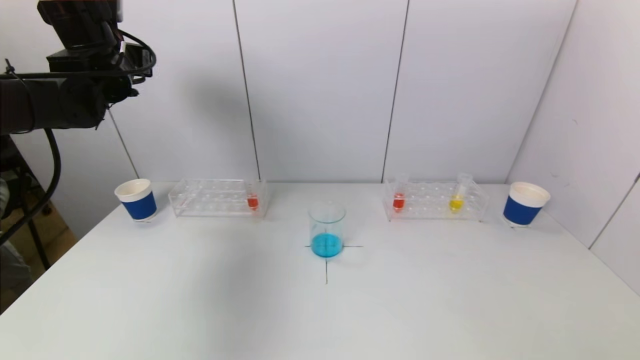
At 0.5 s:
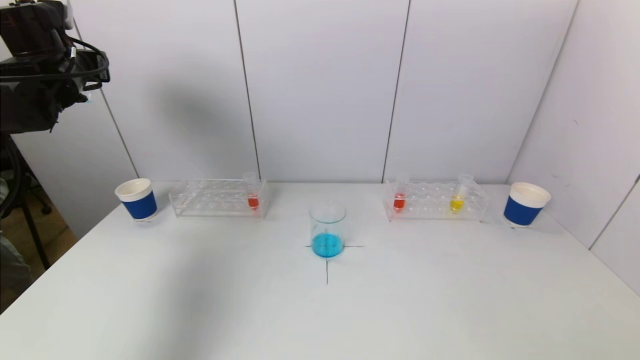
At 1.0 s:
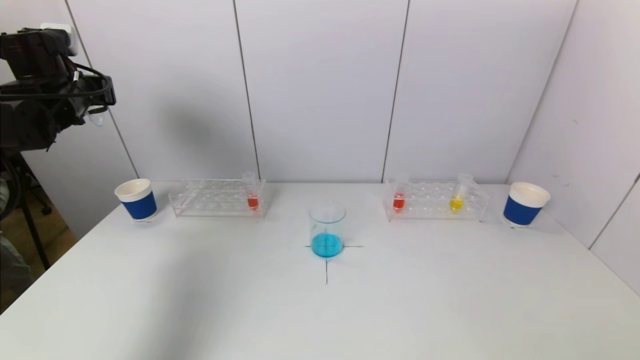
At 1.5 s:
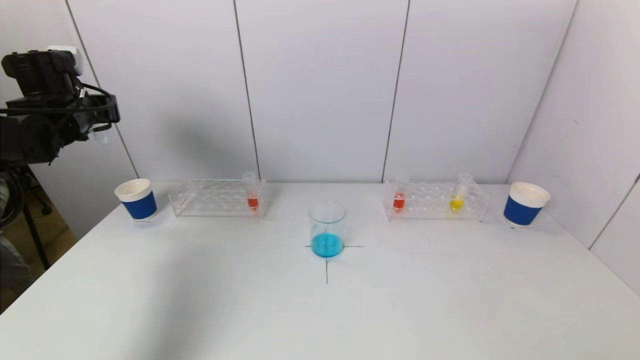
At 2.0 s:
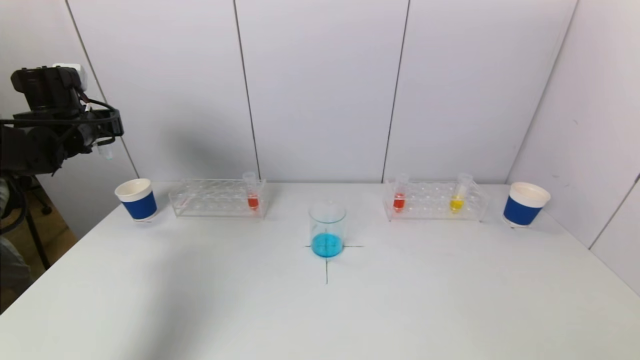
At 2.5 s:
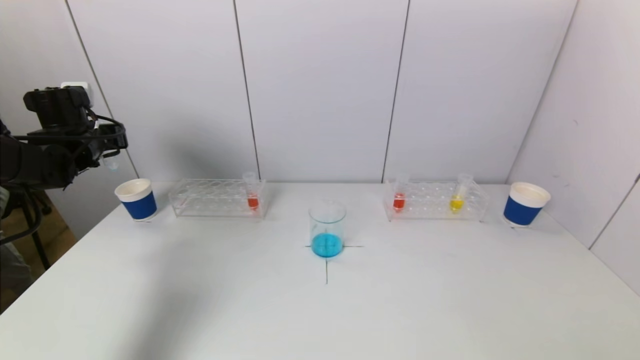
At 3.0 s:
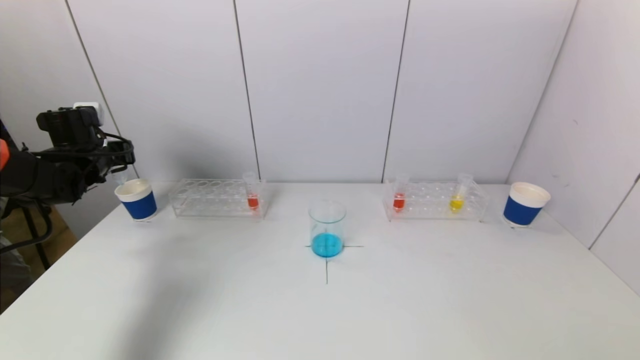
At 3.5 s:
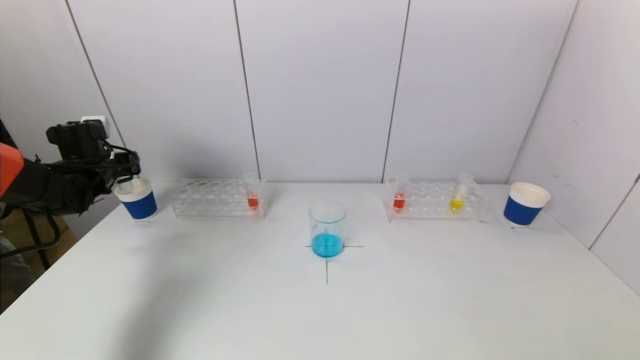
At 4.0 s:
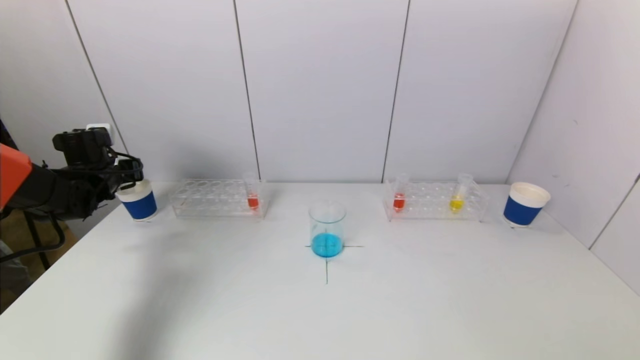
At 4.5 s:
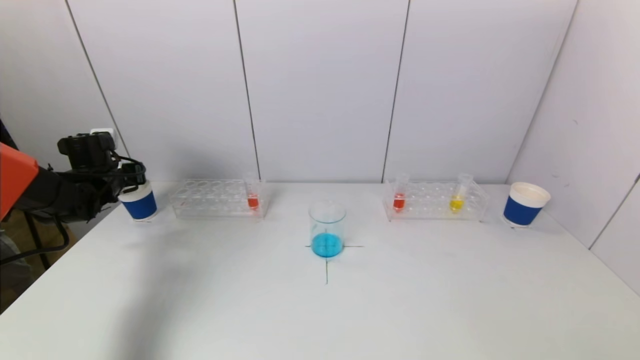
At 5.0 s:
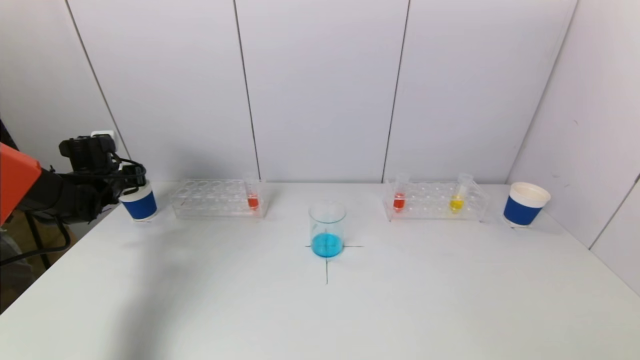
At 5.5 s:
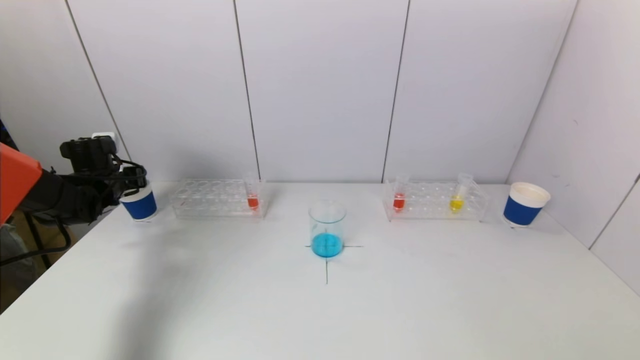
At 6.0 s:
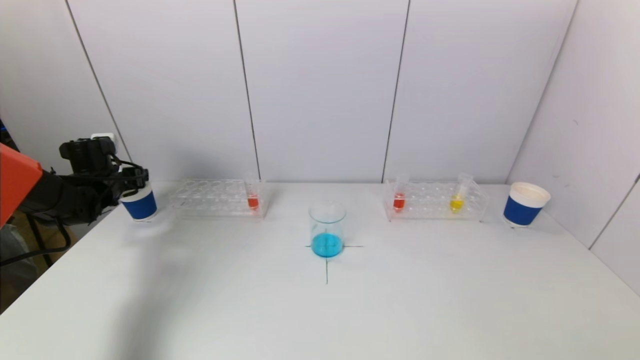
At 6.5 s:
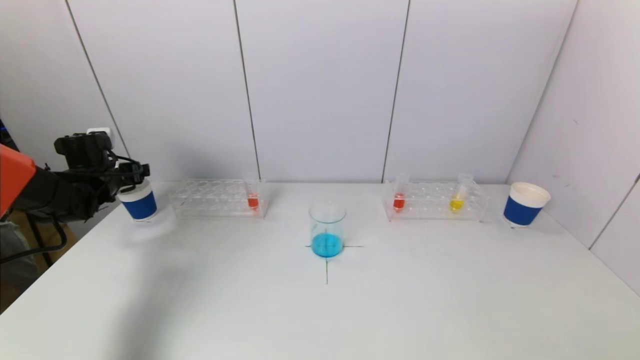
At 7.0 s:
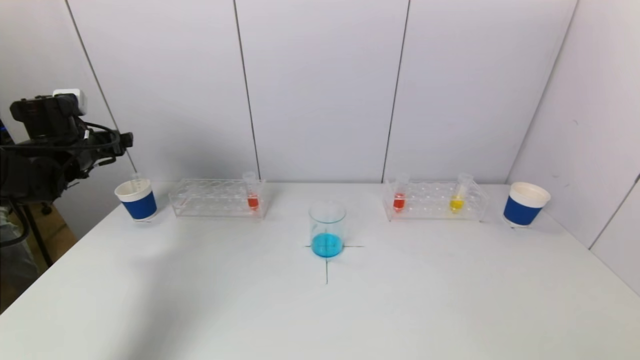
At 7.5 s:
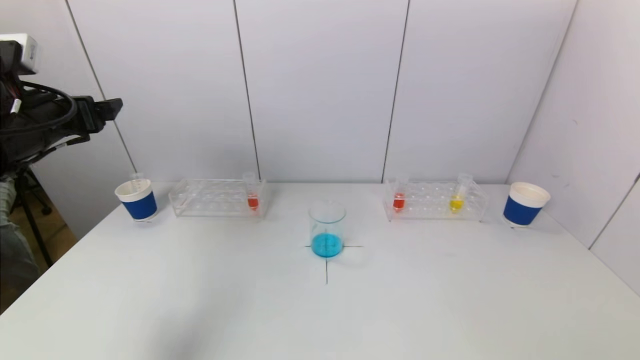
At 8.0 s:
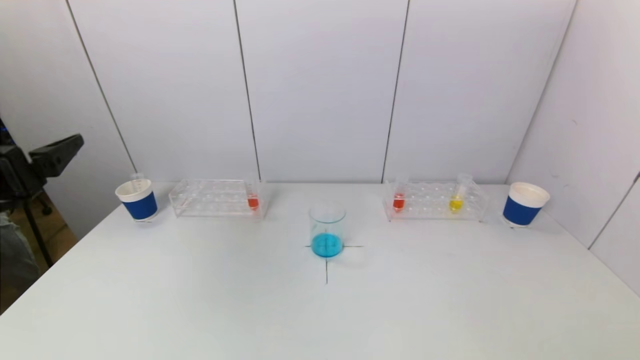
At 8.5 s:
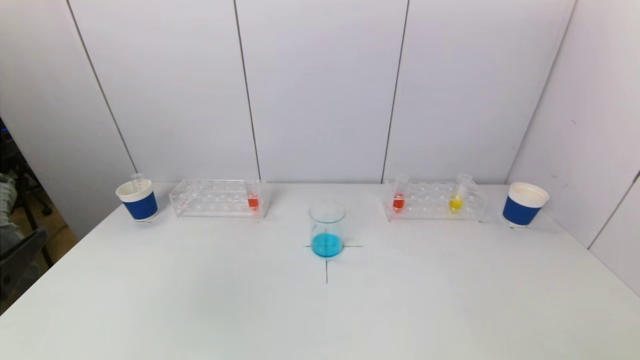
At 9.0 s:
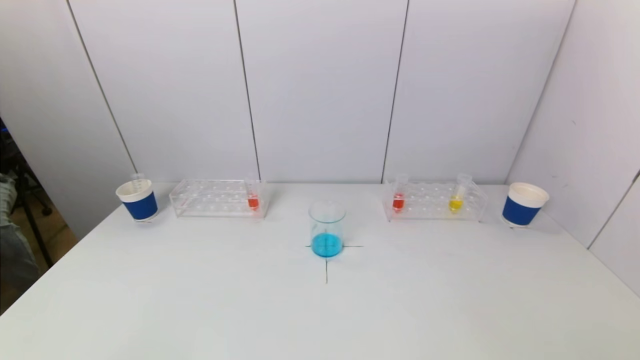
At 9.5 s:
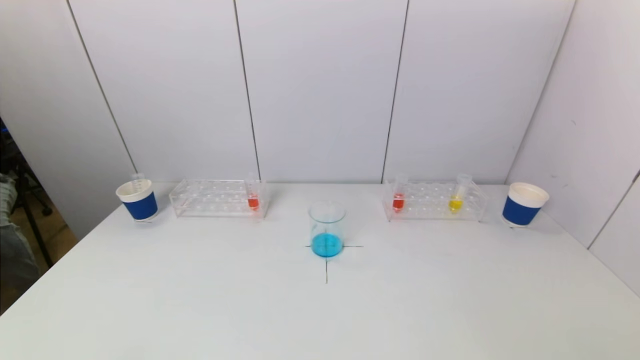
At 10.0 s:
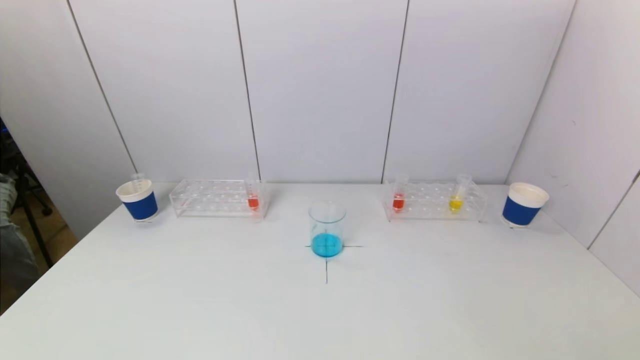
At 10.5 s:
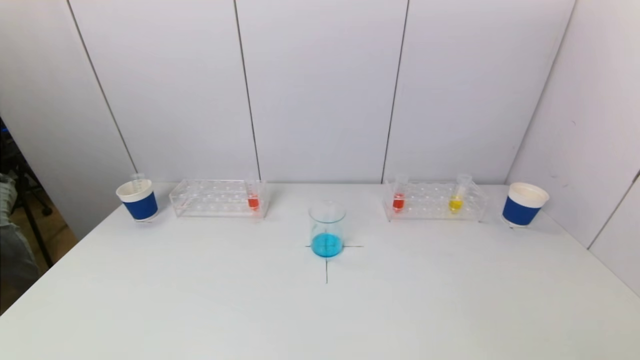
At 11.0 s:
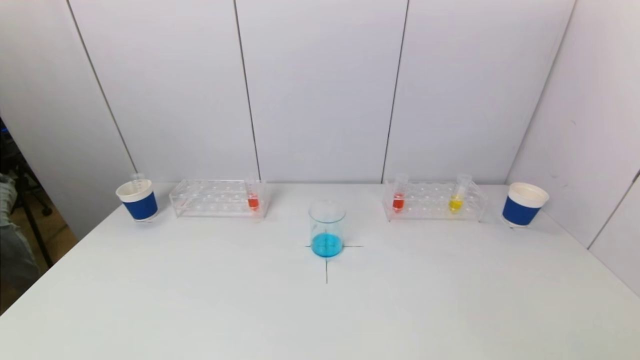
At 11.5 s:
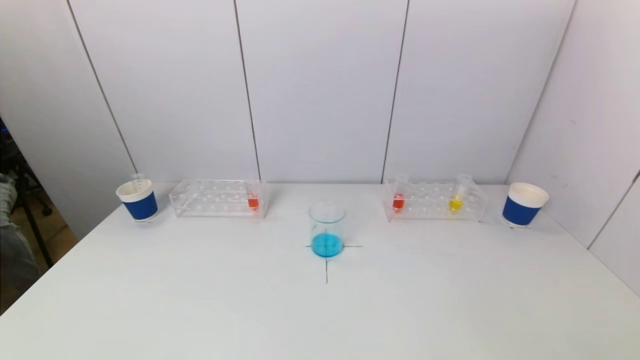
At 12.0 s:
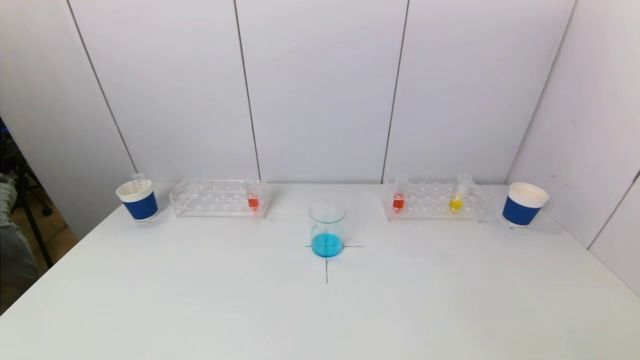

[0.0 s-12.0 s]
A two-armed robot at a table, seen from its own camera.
Task of the whole recording: pick up a test tube with pigment on left test tube rack and a test tube with pigment on right test tube rack by grippers and pour them into the beaker.
Step, 0.0 to 6.0 s: Place the test tube into the paper cup with the left gripper.
0.0 to 2.0 s: The left gripper is displaced downward and to the left by some 10 cm.
2.0 to 4.0 s: The left gripper goes roughly 10 cm downward.
4.0 to 6.0 s: The left gripper opens its fingers.
6.0 to 8.0 s: The left gripper travels backward and upward by roughly 30 cm.
8.0 to 10.0 s: The left gripper goes approximately 25 cm downward and backward.

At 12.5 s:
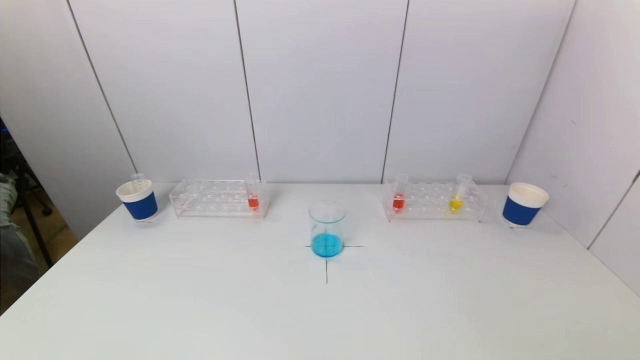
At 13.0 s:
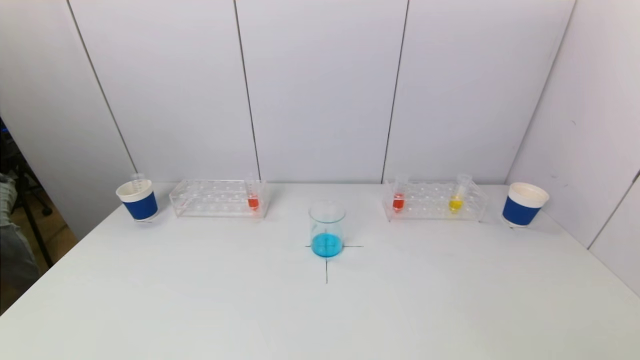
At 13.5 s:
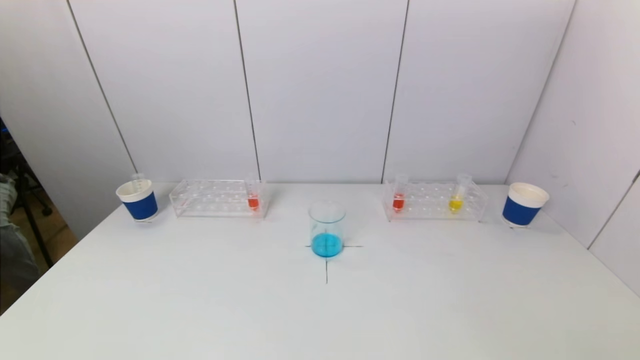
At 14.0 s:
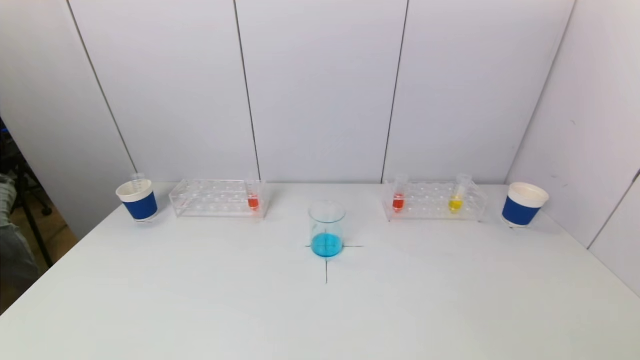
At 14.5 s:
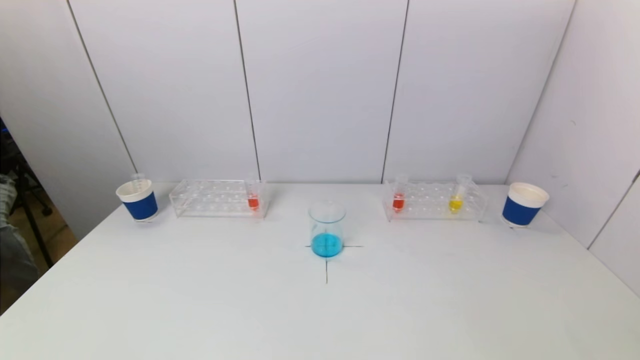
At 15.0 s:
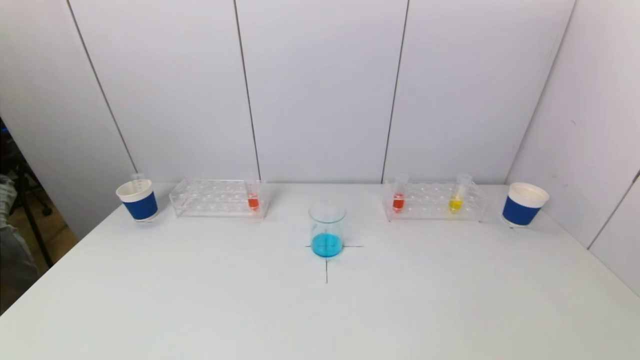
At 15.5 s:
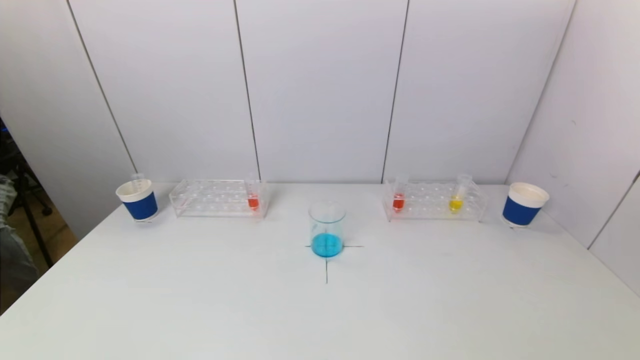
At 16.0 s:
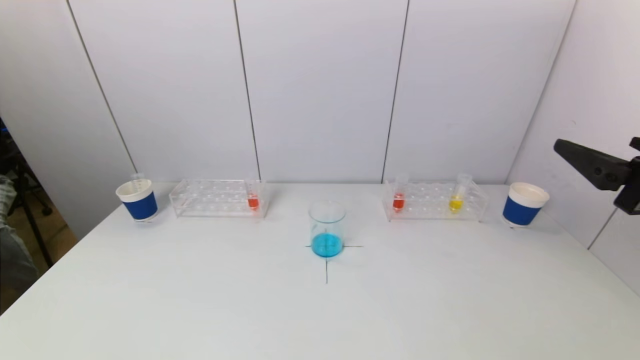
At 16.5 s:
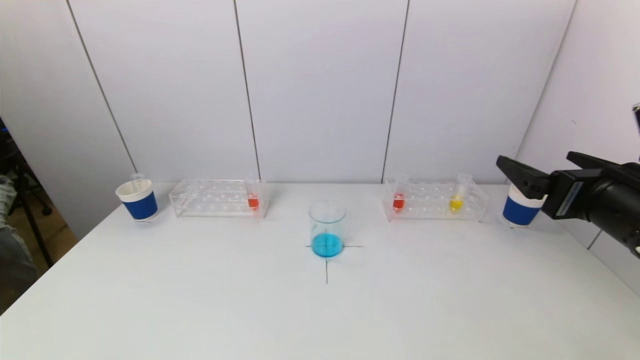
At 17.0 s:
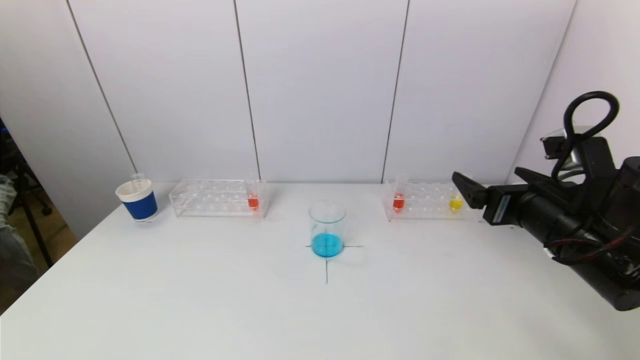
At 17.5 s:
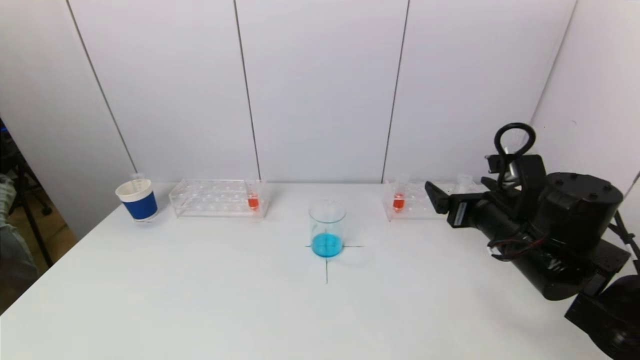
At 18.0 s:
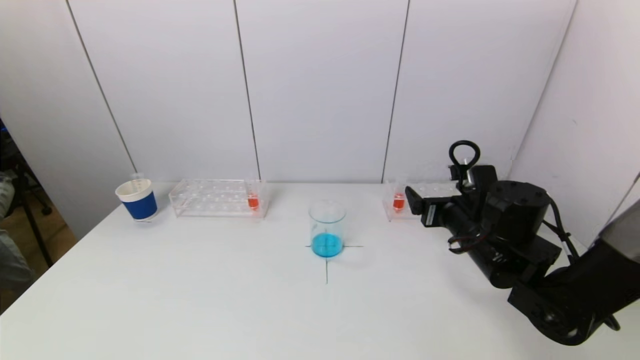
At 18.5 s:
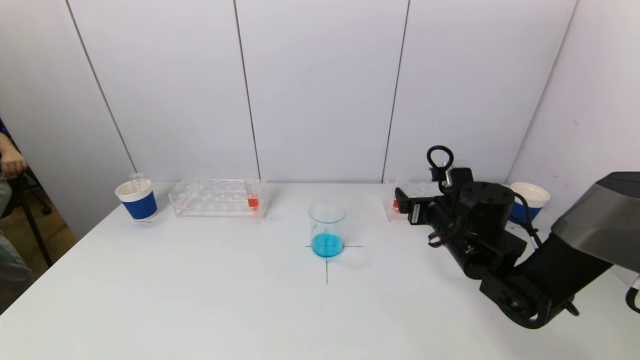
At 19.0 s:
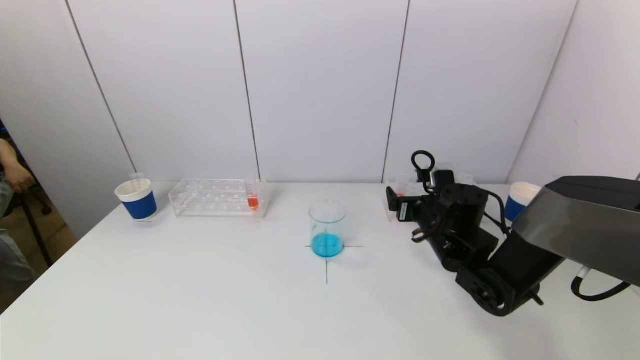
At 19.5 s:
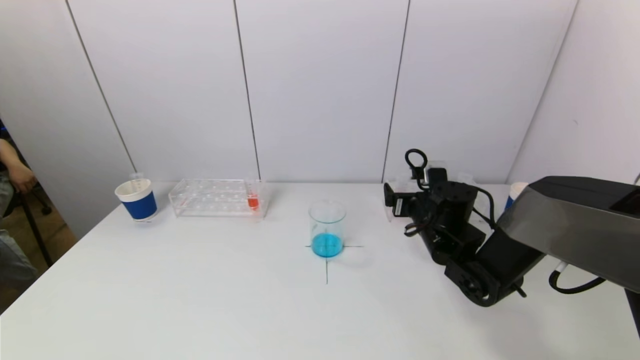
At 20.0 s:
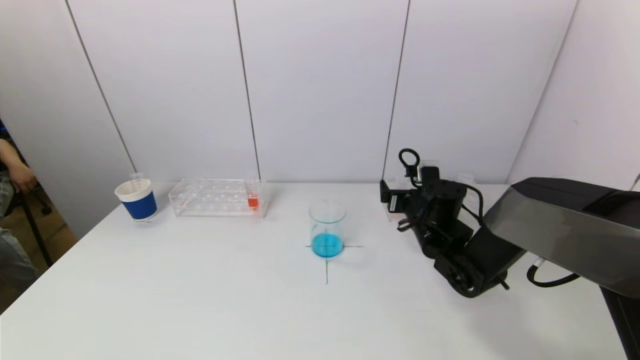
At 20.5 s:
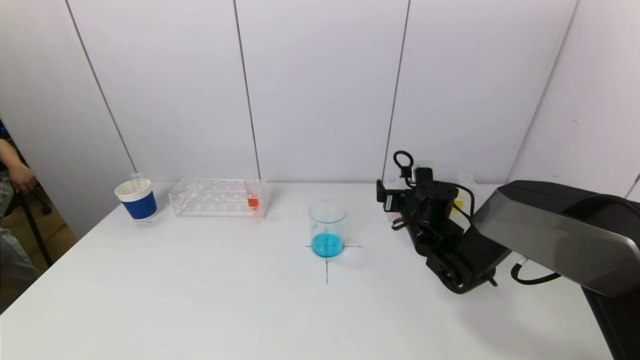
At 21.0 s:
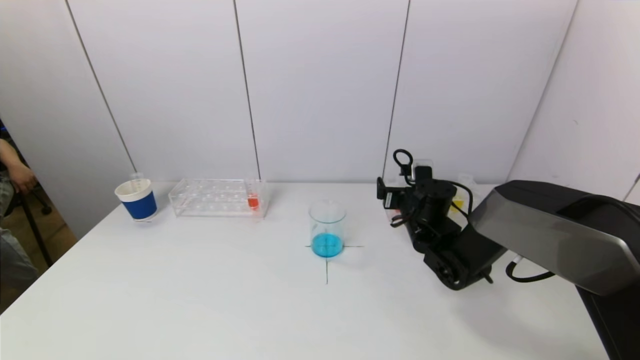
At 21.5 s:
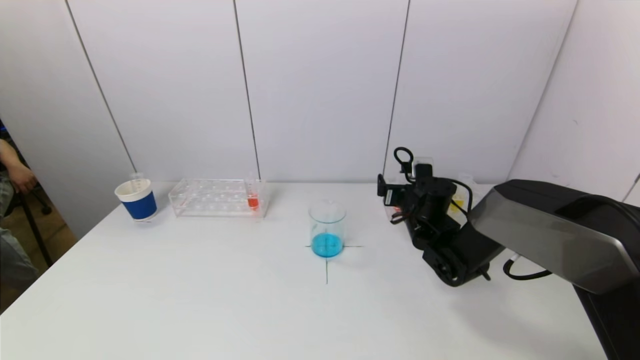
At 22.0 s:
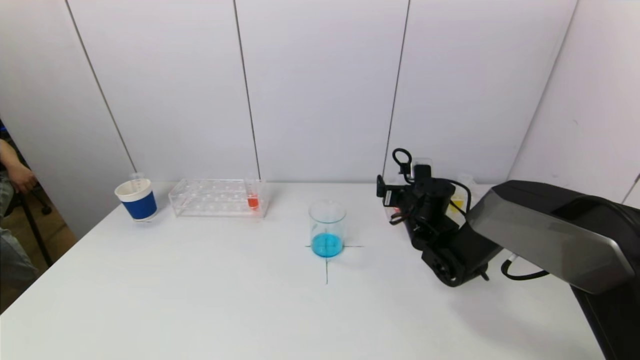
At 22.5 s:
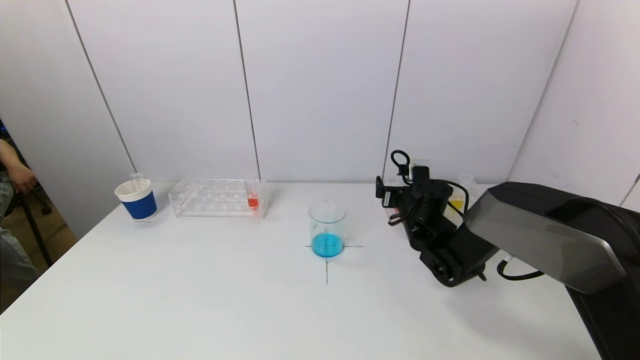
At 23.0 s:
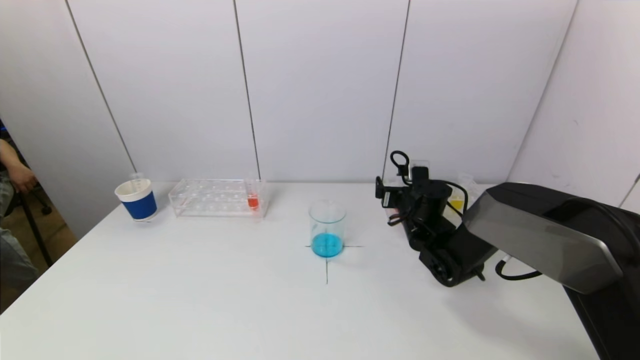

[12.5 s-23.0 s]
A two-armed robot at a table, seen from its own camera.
Task of the whole recording: pick up a test tube with pigment on left test tube rack and a test tube with pigment on right test tube rack by grippers and pour them into the beaker.
14.5 to 16.5 s: The right gripper heads forward, covering approximately 20 cm.
16.5 to 19.0 s: The right gripper goes some 25 cm forward, downward and to the left.
19.0 to 21.0 s: The right gripper moves forward, roughly 5 cm.
21.0 to 23.0 s: Both grippers stay put.
